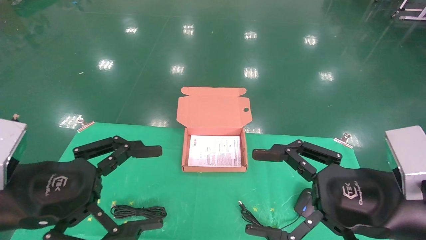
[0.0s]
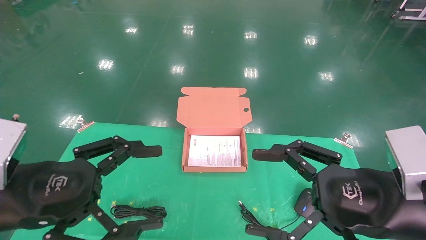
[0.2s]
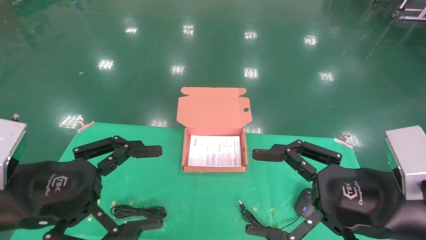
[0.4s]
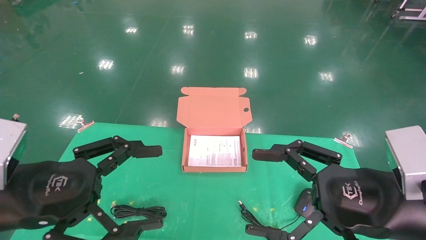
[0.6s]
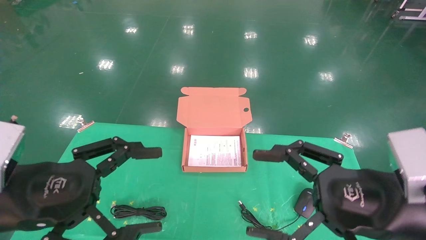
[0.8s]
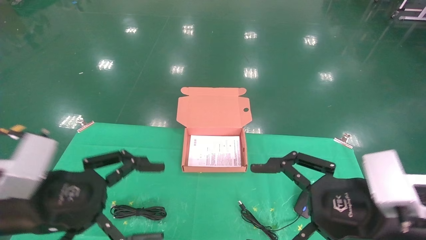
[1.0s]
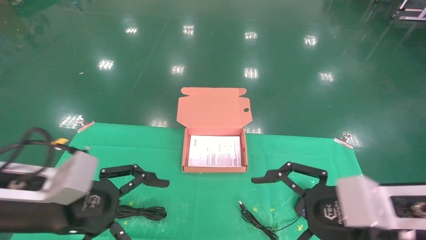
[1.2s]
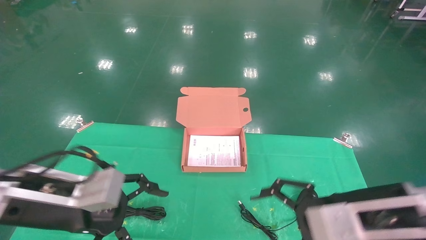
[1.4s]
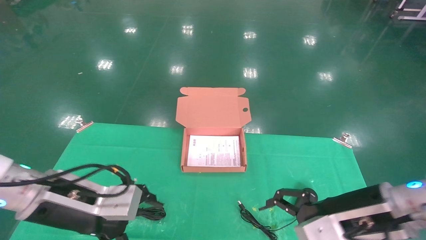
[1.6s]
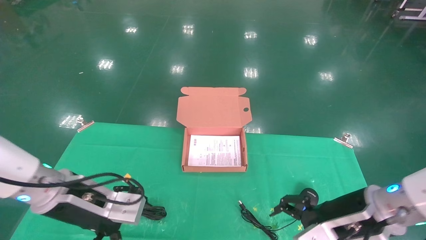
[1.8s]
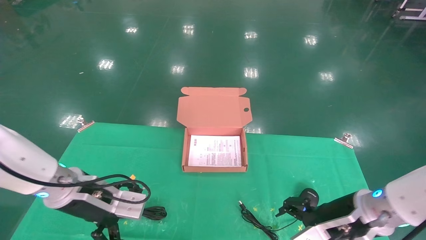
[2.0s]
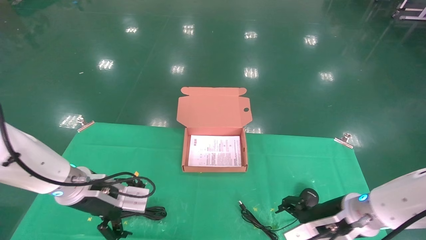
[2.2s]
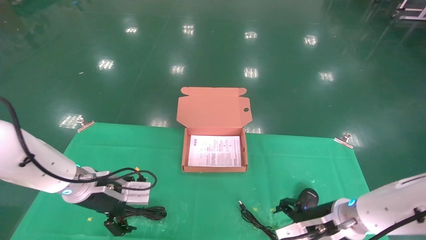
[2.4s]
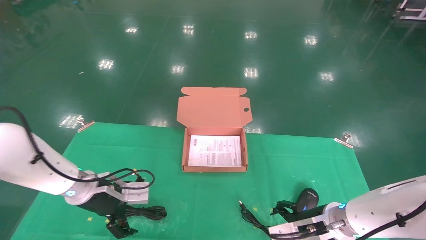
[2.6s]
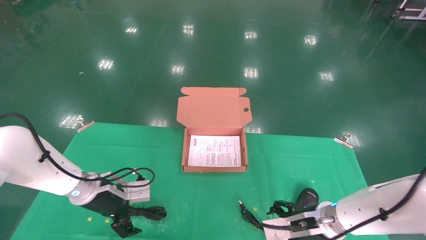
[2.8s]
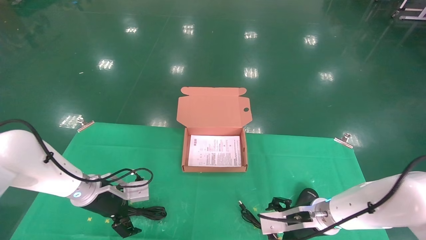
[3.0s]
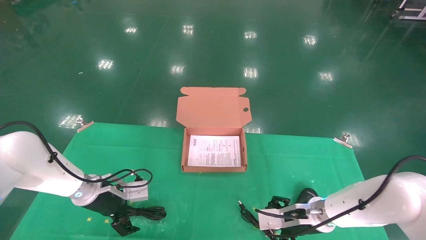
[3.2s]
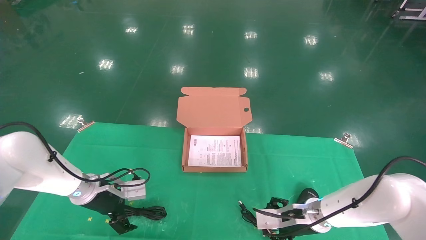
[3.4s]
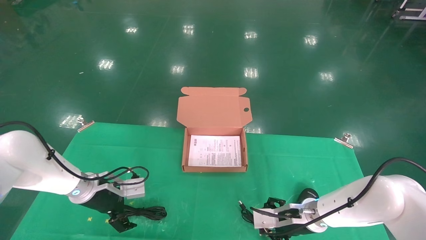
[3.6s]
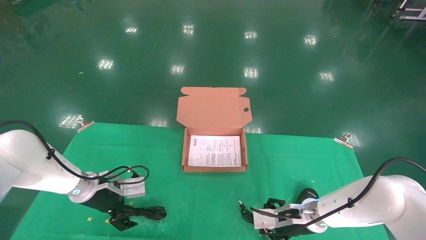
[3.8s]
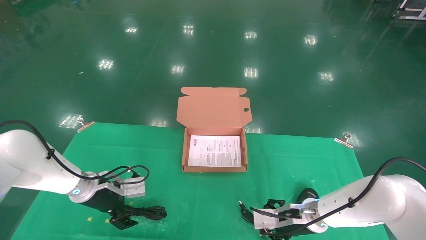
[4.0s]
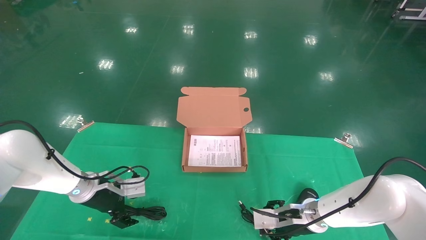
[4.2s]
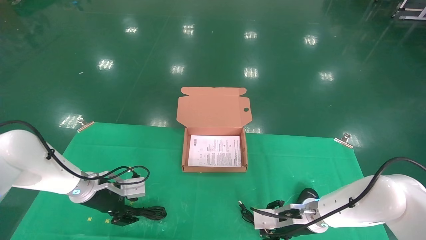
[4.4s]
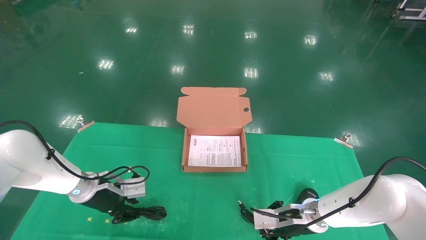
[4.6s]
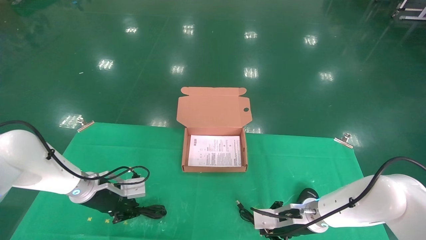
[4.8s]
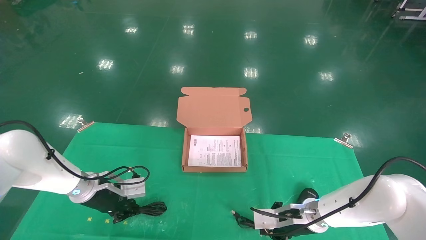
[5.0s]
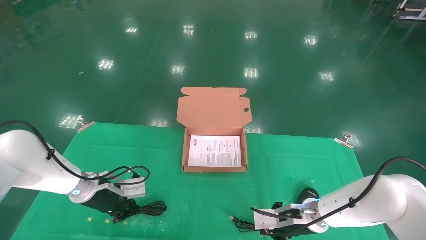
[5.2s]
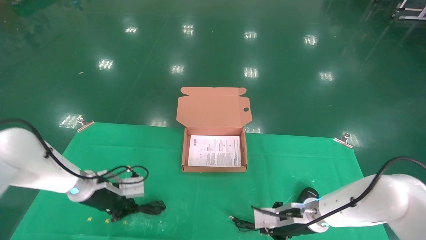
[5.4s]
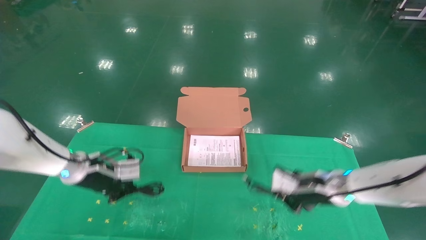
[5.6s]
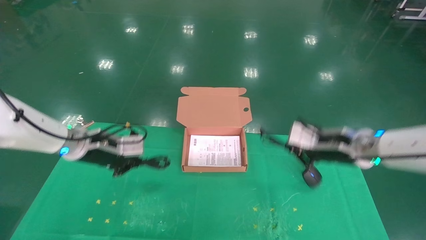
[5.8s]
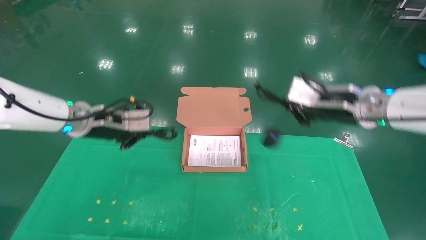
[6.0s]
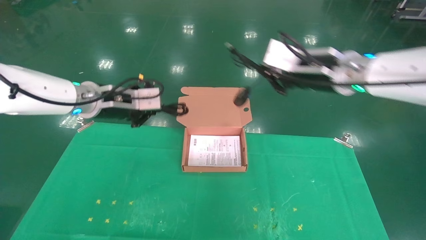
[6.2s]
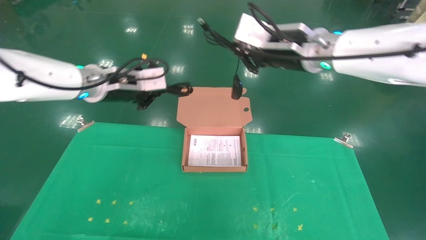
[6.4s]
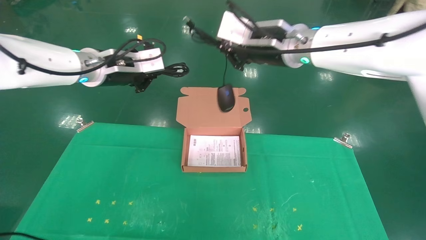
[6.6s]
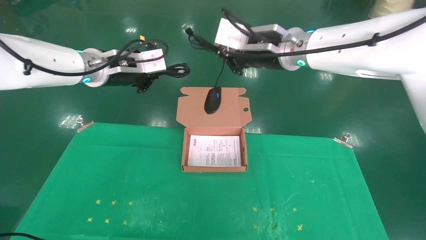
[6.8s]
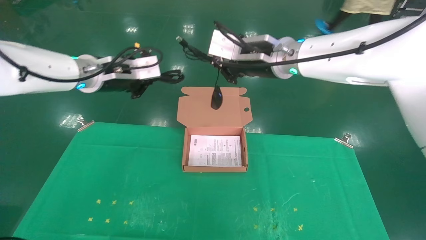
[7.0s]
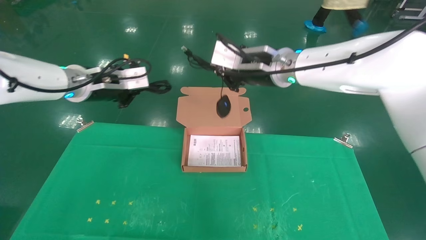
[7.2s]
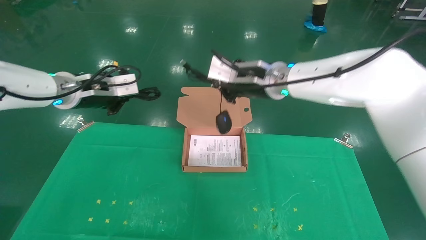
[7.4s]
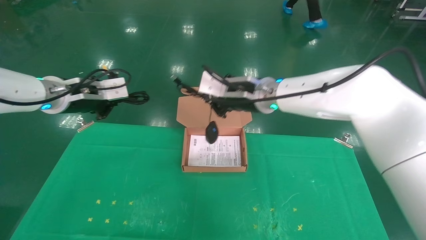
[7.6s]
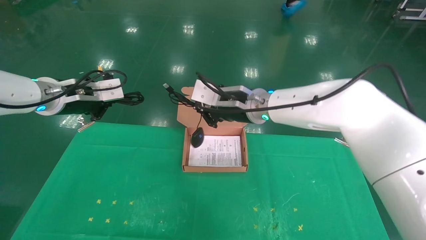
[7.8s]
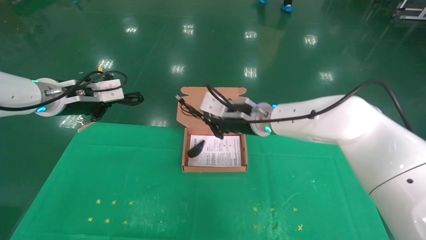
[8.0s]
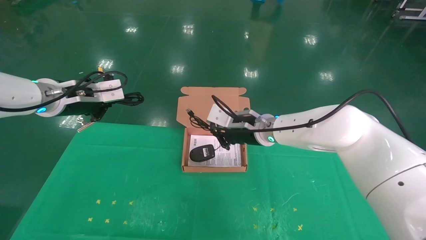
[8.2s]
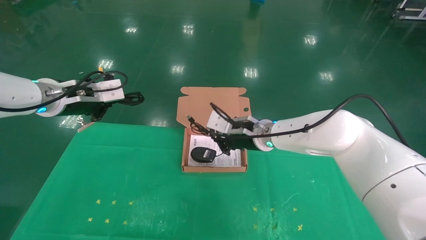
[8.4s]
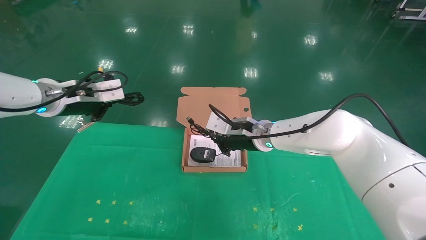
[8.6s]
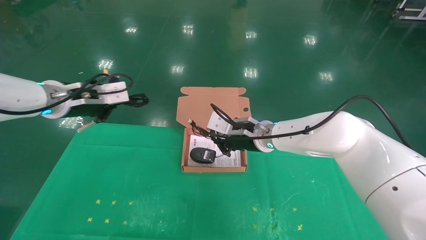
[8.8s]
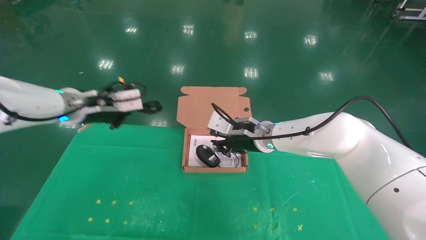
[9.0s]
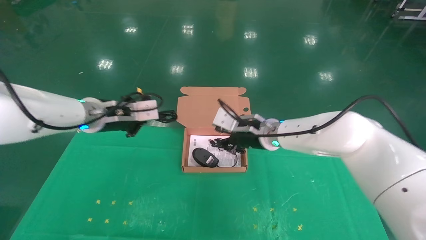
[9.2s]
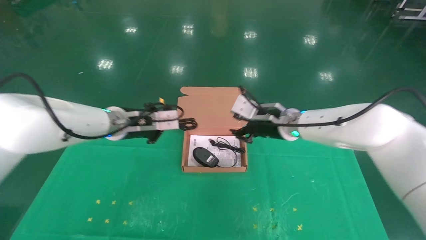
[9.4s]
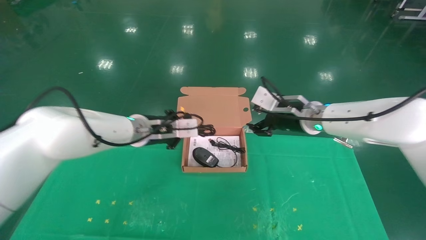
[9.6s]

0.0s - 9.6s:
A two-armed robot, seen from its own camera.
Task of the whole recording: grasp data cable left put into box grasp mouse right put into box.
Step, 0.6s - 5.8s: Grab and pick up both the mouse and power cord from the accessory packaging area at the same time.
0.0s - 1.6s: The left gripper moves forward, approximately 10 cm. The right gripper travels forward and downward by about 10 cm.
1.6s - 3.2s: Both grippers travel together forward and downward, roughly 20 cm.
3.2s - 4.8s: The right gripper closes. Meanwhile the left gripper closes its fingers.
4.8s - 6.4s: Both grippers move upward, some 30 cm.
6.4s - 8.0s: The left gripper is displaced to the left by roughly 10 cm; the right gripper travels downward, to the left and forward by approximately 15 cm.
8.0s - 9.6s: The left gripper is displaced to the right and downward by roughly 20 cm. The right gripper heads to the right, covering some 10 cm, and opens.

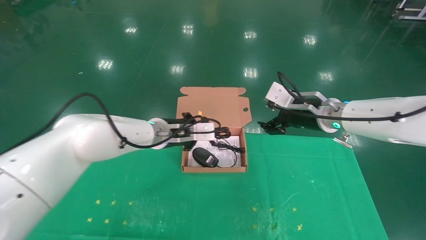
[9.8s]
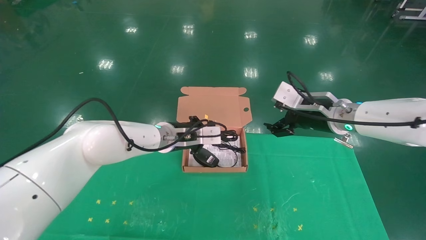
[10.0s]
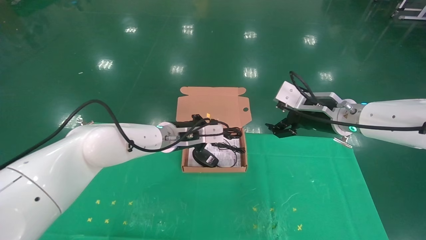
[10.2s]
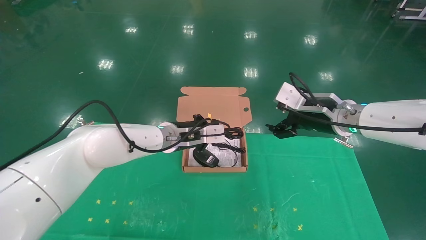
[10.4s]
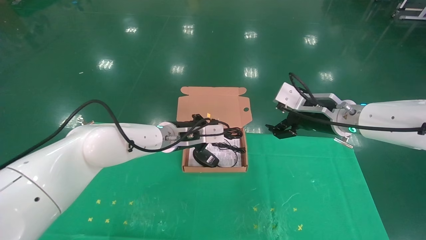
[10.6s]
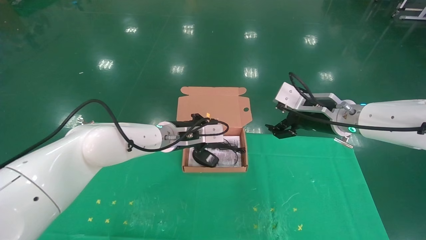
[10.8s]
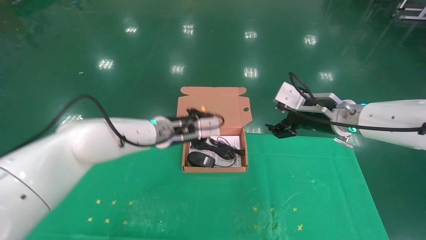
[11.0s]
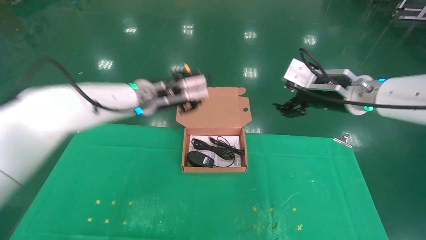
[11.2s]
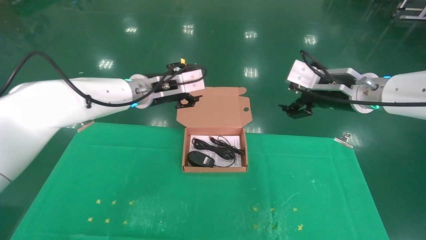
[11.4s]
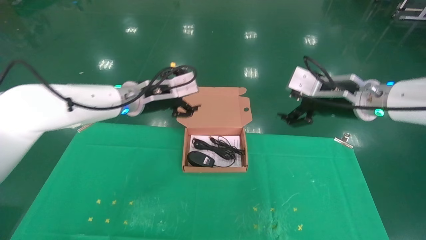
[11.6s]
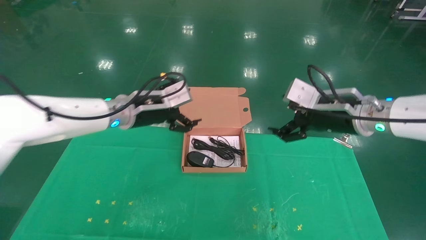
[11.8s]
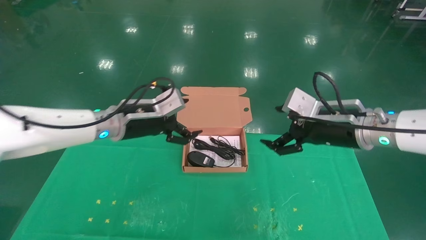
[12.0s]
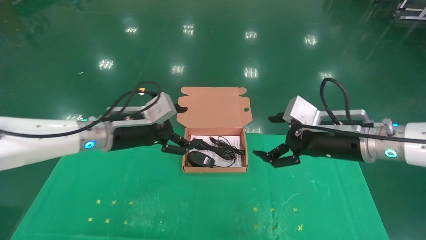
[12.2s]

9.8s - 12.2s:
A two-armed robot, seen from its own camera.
Task of the whole recording: grasp data cable left put into box grasp mouse right put into box.
9.8s - 11.0s: The grippers make only small movements.
11.0s - 12.2s: The right gripper goes about 5 cm backward; the left gripper heads to the left and backward, covering roughly 10 cm, and opens up.

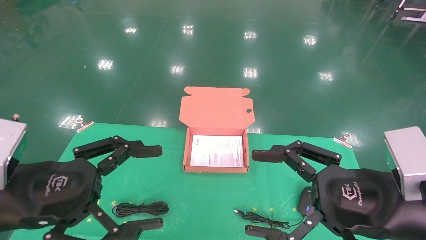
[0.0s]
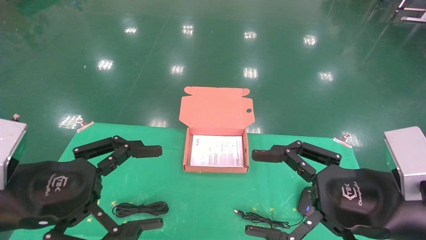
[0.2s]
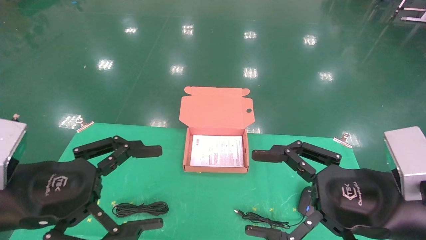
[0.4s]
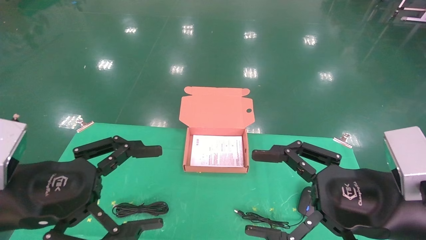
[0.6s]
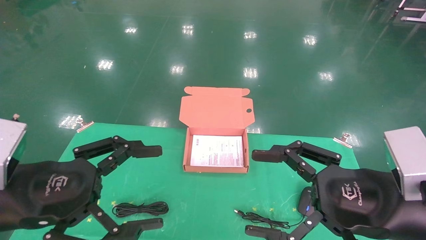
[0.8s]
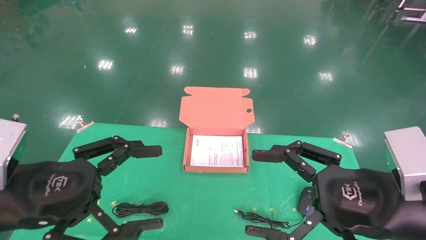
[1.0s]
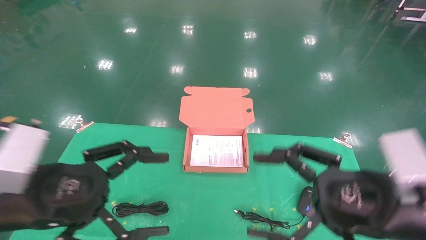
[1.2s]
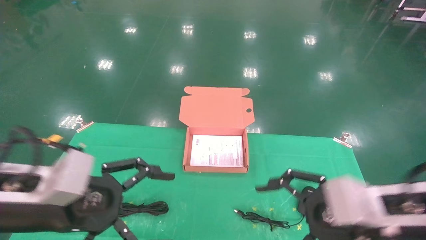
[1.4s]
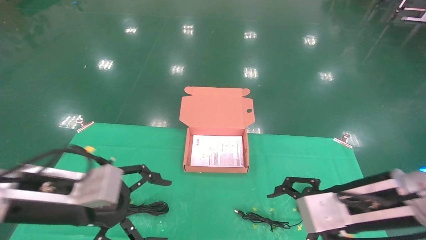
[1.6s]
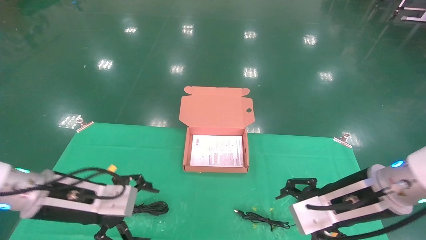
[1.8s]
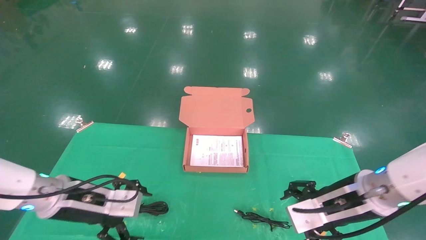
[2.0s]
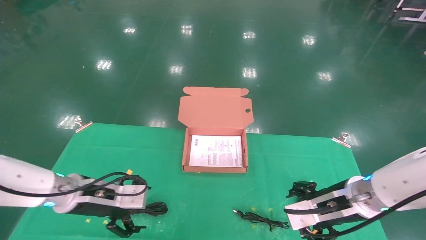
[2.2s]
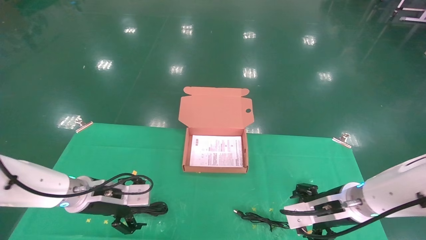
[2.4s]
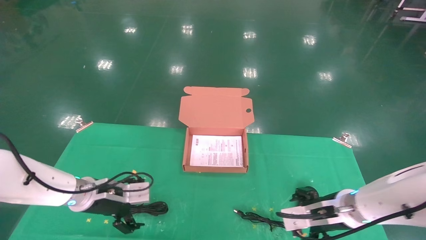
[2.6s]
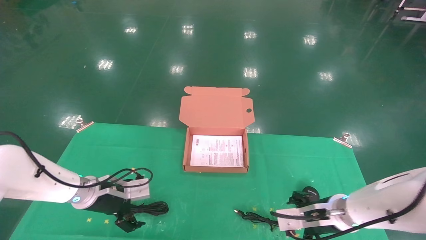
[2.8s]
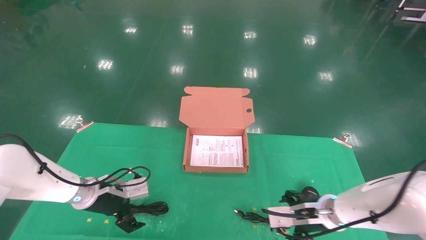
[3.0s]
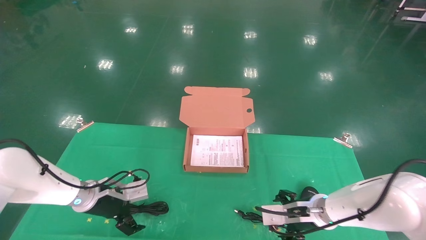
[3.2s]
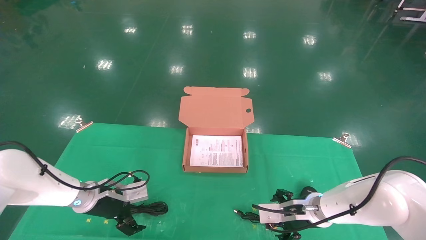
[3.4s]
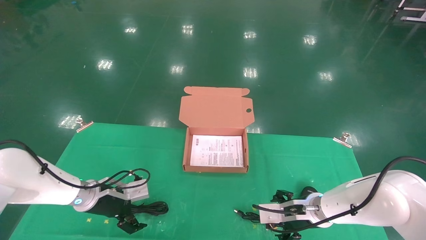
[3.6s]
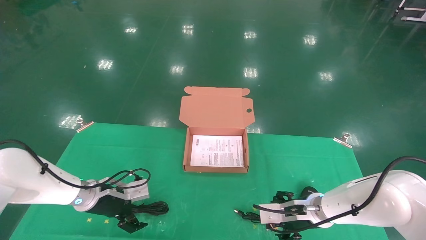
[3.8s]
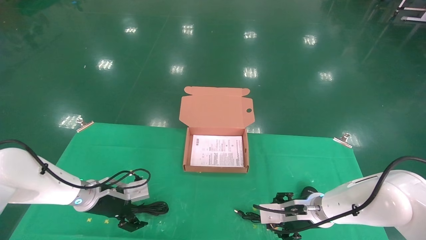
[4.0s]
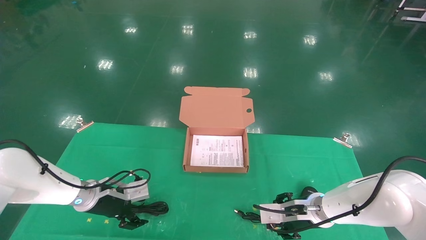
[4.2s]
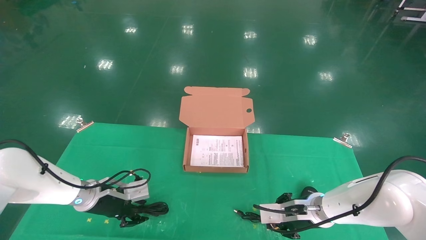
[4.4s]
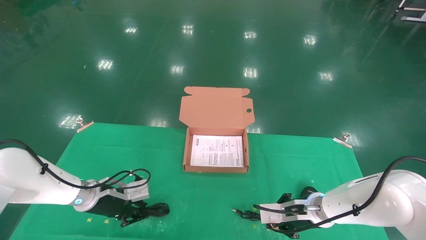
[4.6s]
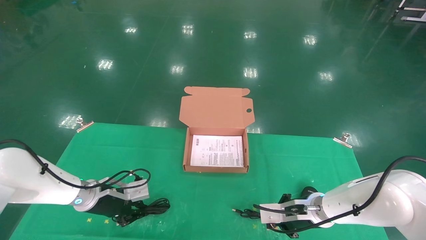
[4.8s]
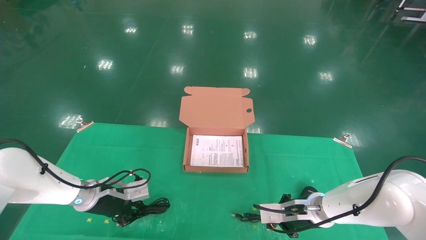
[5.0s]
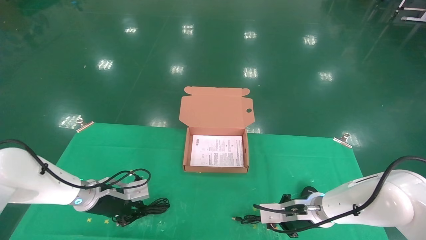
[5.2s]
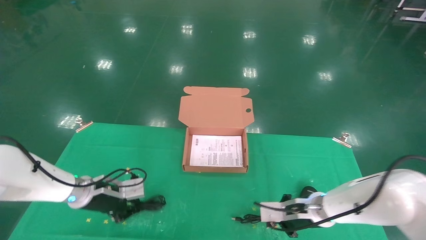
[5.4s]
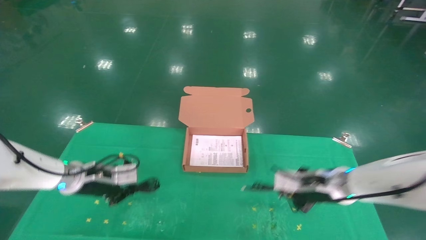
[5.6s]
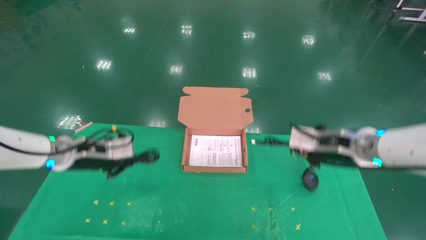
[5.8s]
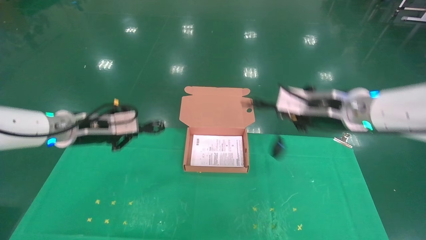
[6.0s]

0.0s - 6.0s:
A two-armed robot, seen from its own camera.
Task of the whole recording: grasp data cable left put into box grasp mouse right put into box.
Step, 1.4s - 5.0s: Grab and pick up both the mouse and power cord from the accessory packaging area at the same time.
0.0s - 1.6s: Both grippers travel together forward, some 5 cm.
1.6s - 3.0s: The left gripper is displaced forward and downward by some 20 cm; the right gripper heads downward and forward, covering approximately 15 cm.
3.0s - 4.4s: The left gripper closes, while the right gripper closes up.
4.4s - 6.0s: The two grippers go approximately 20 cm upward. The left gripper closes; the right gripper closes its fingers.
